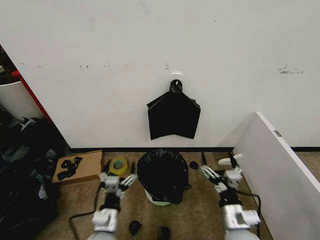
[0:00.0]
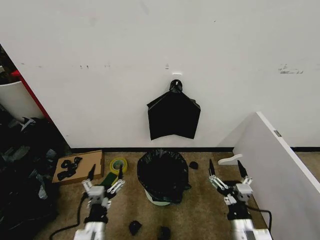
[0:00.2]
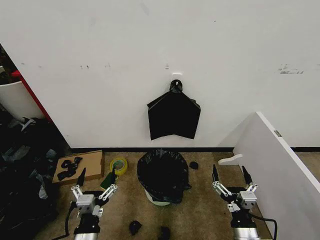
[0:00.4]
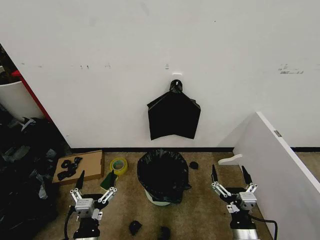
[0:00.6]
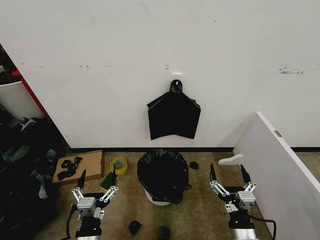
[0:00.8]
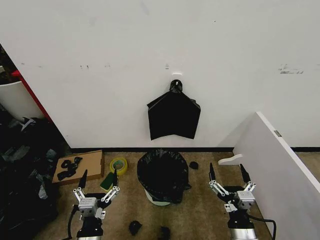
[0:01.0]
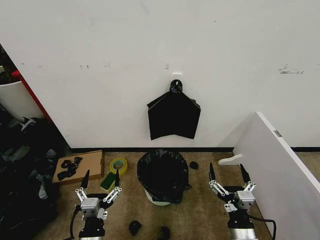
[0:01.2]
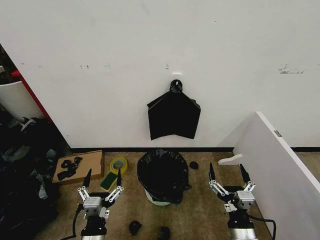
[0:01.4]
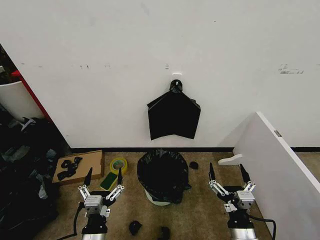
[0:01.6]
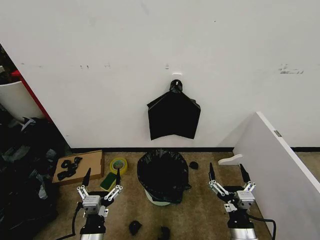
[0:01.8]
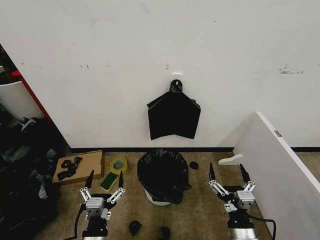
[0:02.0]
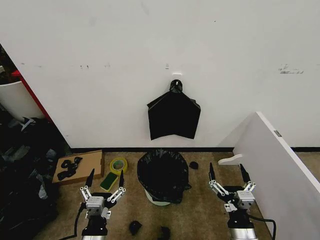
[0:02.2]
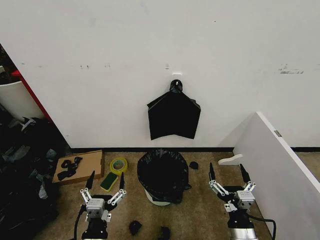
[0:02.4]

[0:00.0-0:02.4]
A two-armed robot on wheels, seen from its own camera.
Task of the whole recording: Place the garbage bag over the trash bin.
0:00.0 to 0:01.2: The two grippers go some 5 cm backward.
0:01.2 to 0:02.4: Both grippers stay about where they are.

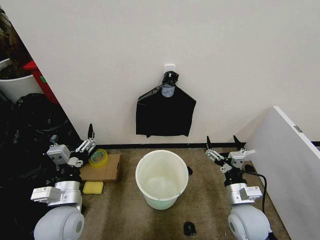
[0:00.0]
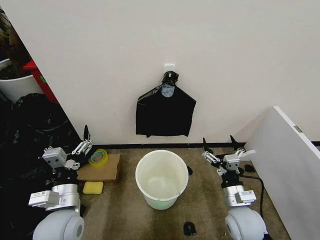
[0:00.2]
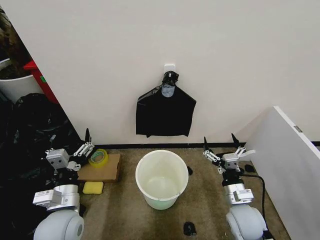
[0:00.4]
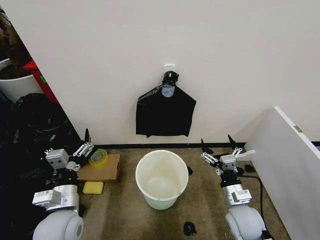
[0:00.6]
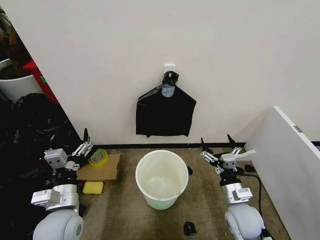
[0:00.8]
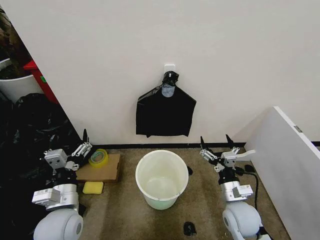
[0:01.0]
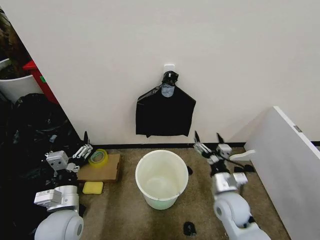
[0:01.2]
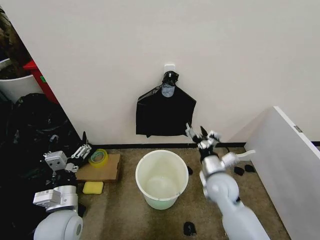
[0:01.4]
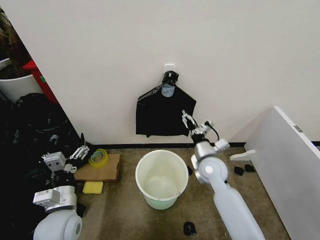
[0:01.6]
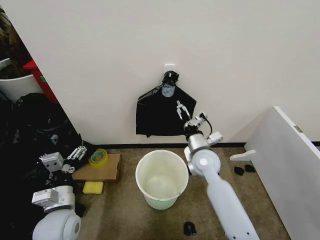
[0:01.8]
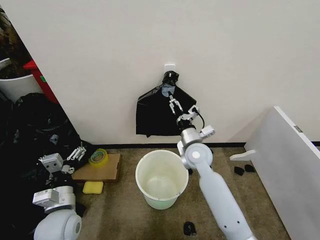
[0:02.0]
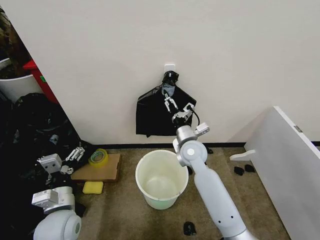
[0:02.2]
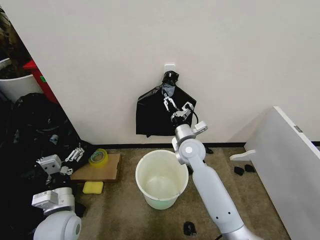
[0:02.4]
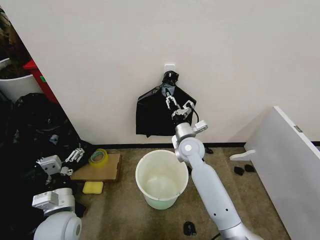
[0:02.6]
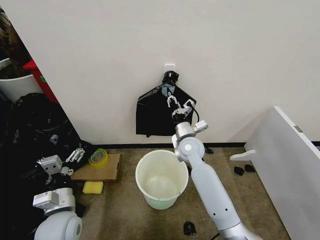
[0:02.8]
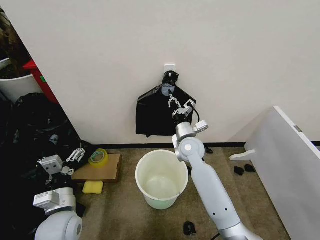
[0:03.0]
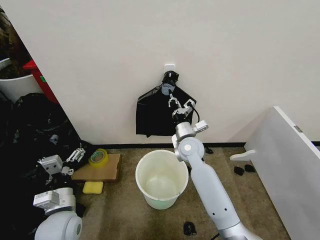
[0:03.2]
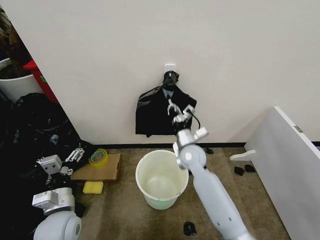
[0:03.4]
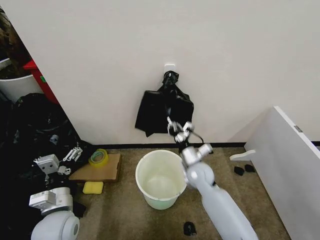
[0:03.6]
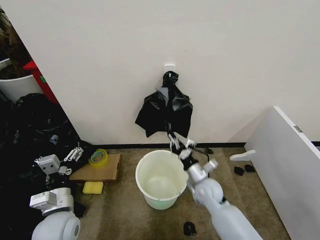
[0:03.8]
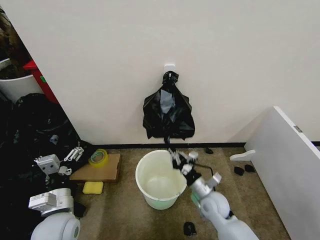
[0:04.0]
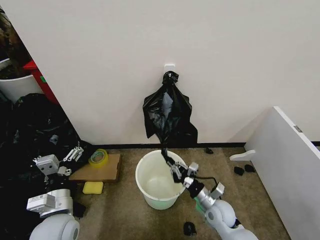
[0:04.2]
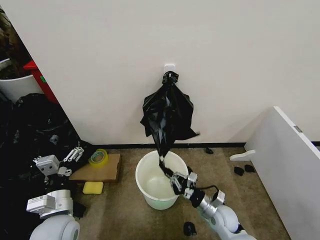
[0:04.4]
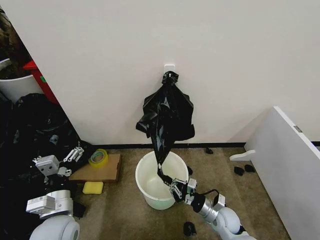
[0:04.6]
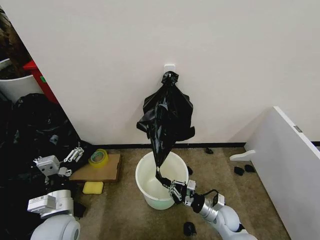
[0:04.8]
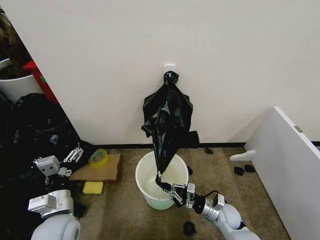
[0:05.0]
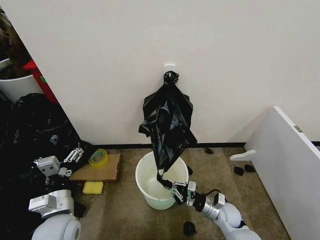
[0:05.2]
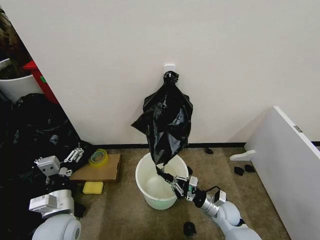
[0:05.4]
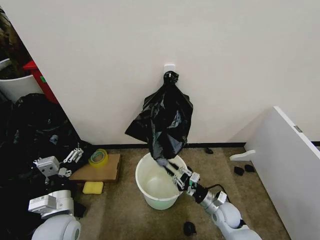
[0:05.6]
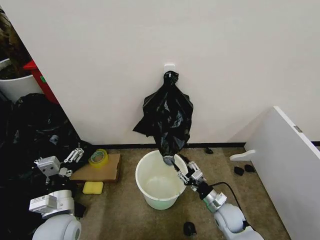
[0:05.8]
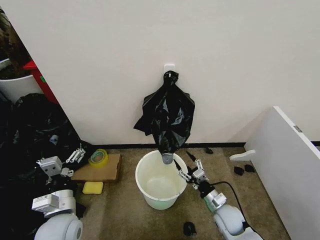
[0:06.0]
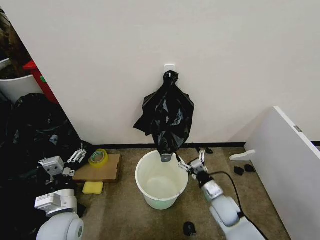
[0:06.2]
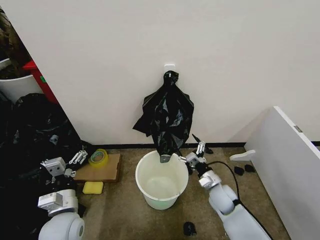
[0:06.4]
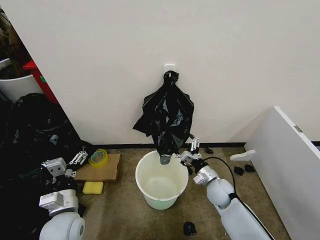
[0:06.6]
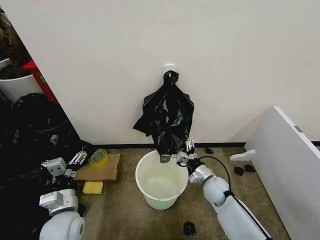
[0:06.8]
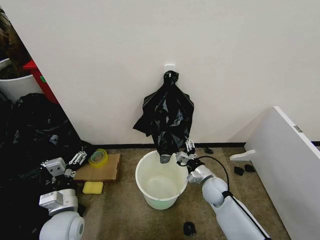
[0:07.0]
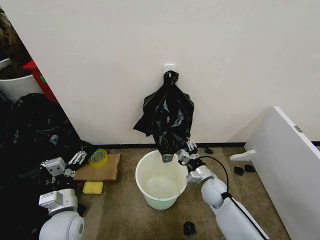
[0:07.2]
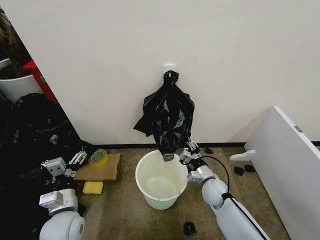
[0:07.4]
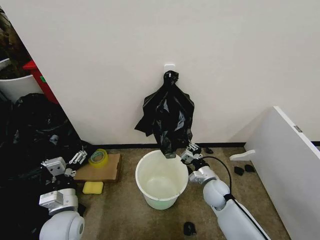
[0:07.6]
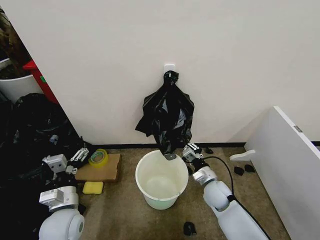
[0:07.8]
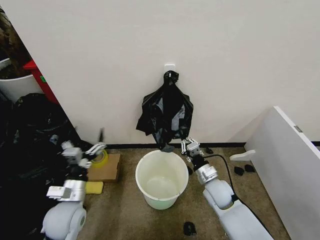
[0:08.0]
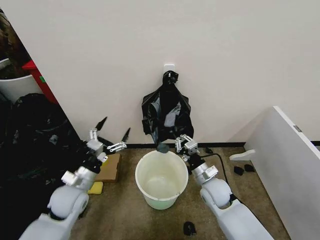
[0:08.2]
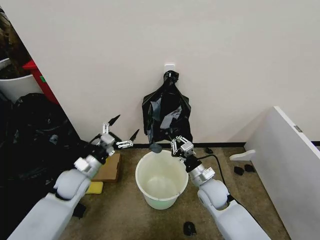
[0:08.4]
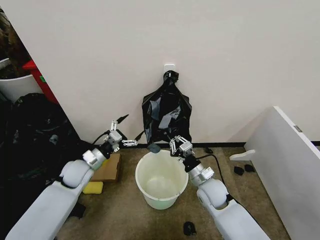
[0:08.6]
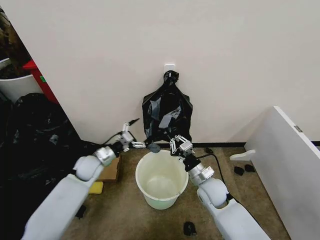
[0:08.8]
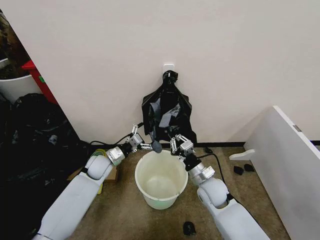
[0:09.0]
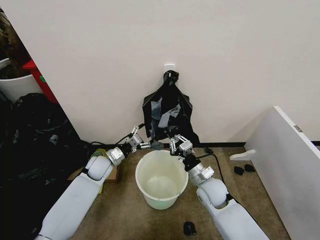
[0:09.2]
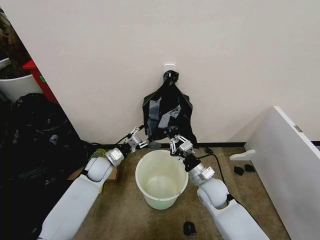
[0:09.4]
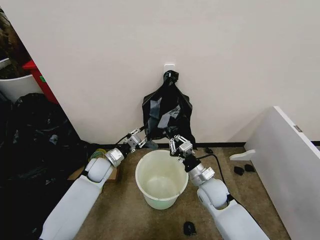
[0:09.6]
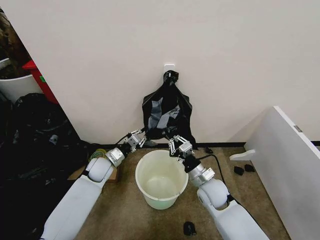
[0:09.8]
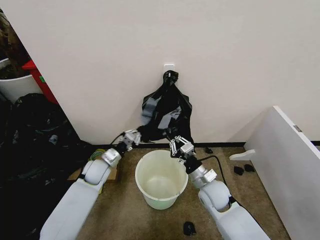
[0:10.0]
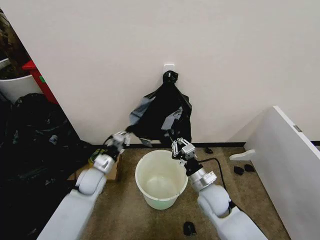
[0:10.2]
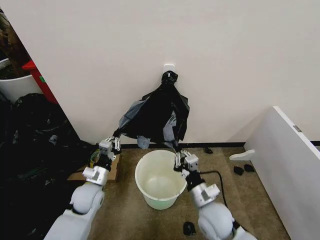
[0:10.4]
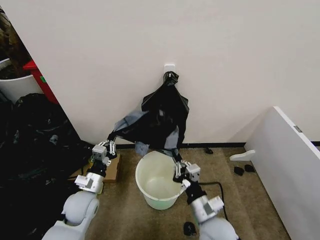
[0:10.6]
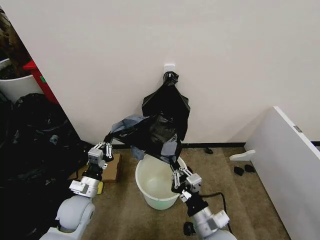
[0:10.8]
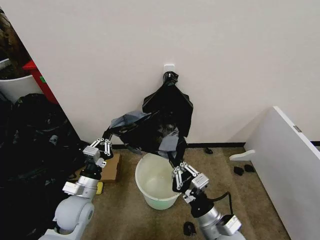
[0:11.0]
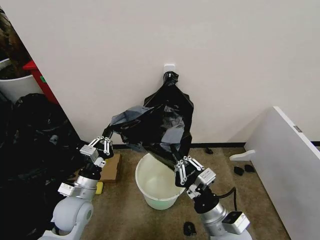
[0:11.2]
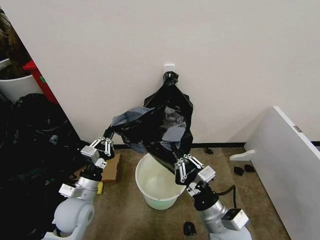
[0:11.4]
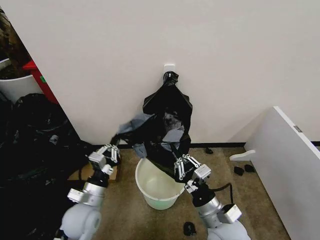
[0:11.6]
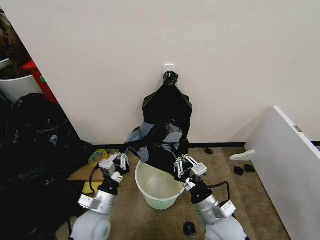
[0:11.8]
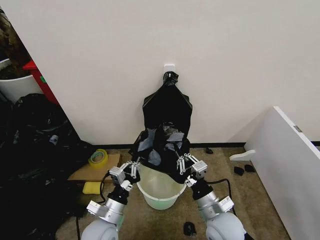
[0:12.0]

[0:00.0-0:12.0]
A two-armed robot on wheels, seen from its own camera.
Task of the whole recording: Place the garbage bag over the trash bin.
0:01.6 to 0:03.0: The right gripper shifts approximately 10 cm forward and to the left, and closes.
0:03.0 to 0:04.4: The right gripper moves downward, backward and to the right, some 30 cm.
0:04.4 to 0:06.0: The right gripper opens its fingers.
0:06.0 to 0:07.6: The right gripper shifts roughly 10 cm forward, and closes its fingers.
0:07.6 to 0:09.0: The right gripper is displaced upward by some 5 cm. Meanwhile the left gripper shifts some 20 cm forward.
0:09.0 to 0:10.4: Both grippers move backward, some 10 cm. The left gripper closes up.
0:10.4 to 0:12.0: The left gripper shifts approximately 15 cm backward and to the right.

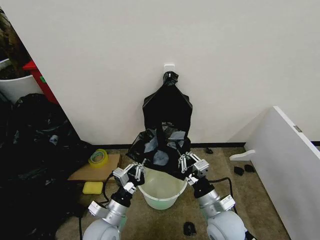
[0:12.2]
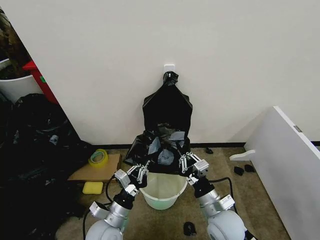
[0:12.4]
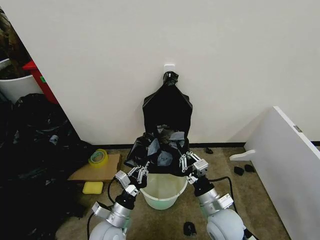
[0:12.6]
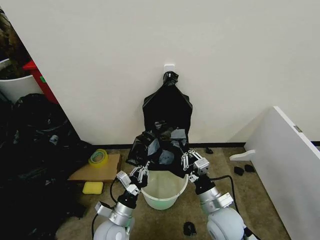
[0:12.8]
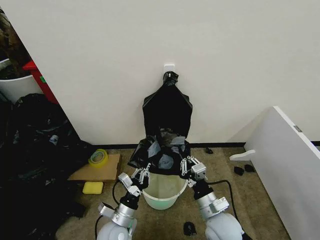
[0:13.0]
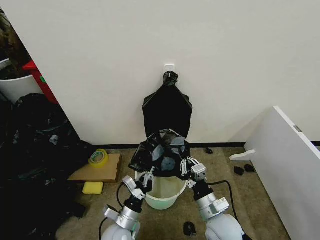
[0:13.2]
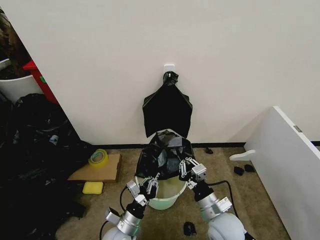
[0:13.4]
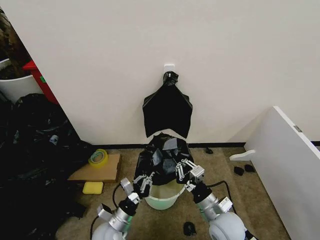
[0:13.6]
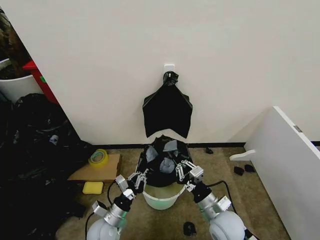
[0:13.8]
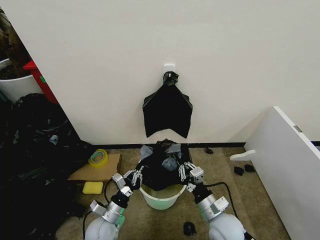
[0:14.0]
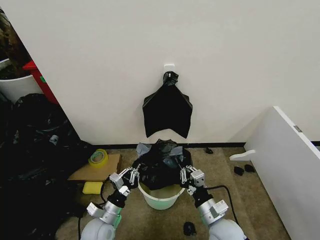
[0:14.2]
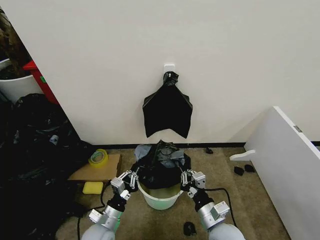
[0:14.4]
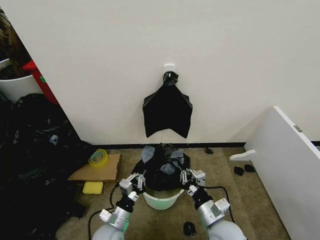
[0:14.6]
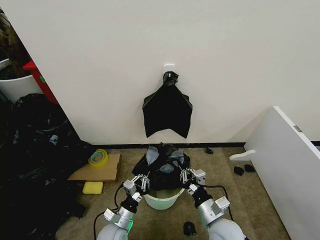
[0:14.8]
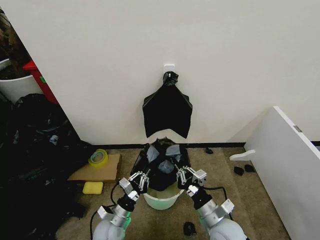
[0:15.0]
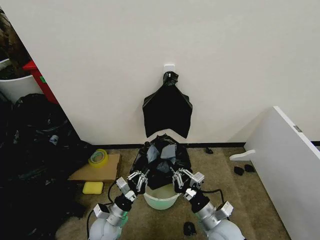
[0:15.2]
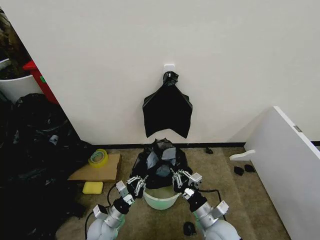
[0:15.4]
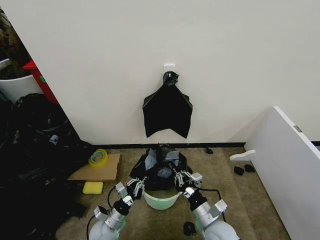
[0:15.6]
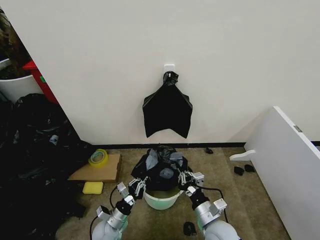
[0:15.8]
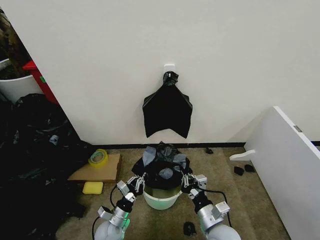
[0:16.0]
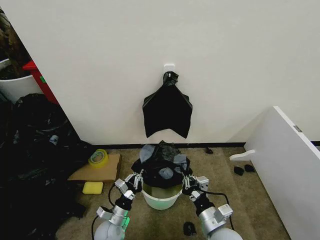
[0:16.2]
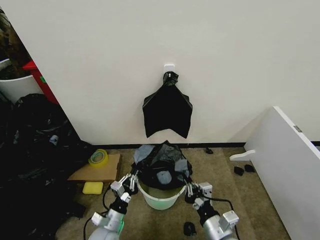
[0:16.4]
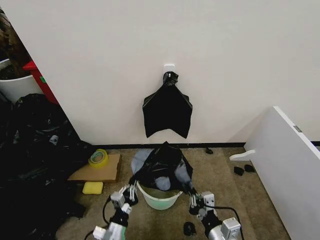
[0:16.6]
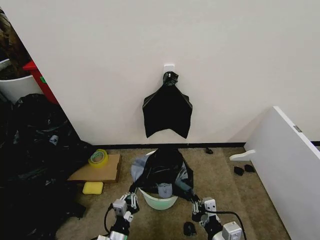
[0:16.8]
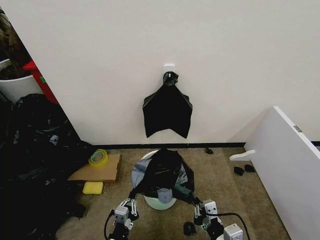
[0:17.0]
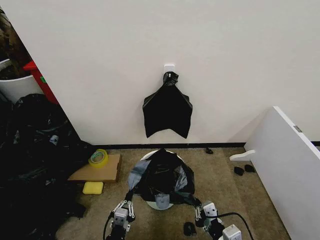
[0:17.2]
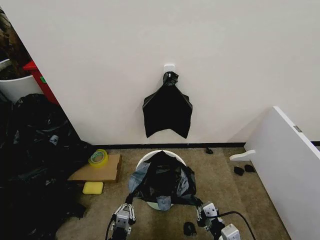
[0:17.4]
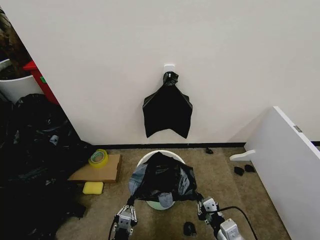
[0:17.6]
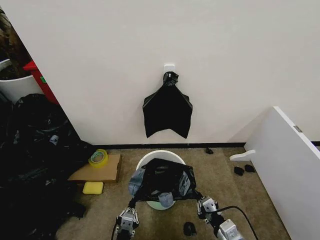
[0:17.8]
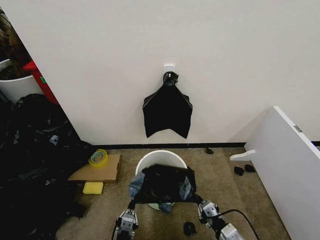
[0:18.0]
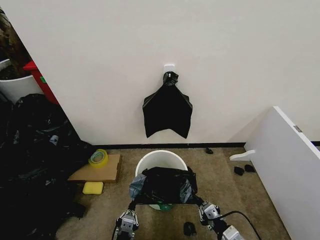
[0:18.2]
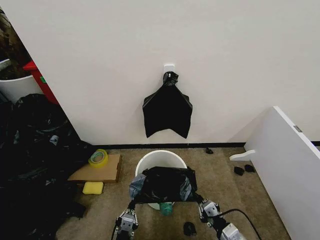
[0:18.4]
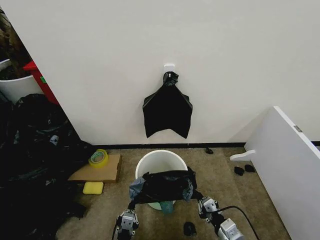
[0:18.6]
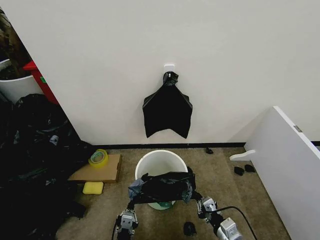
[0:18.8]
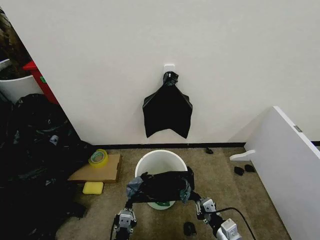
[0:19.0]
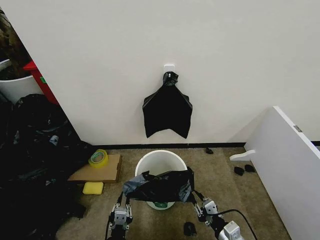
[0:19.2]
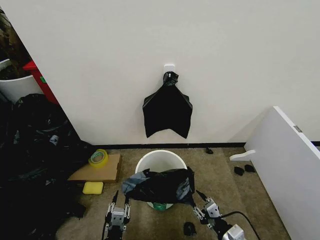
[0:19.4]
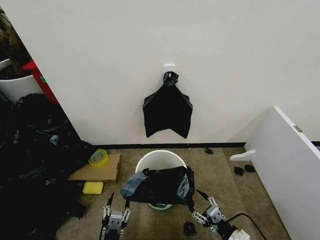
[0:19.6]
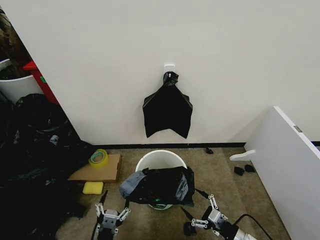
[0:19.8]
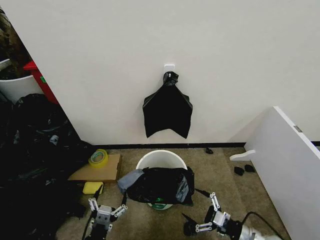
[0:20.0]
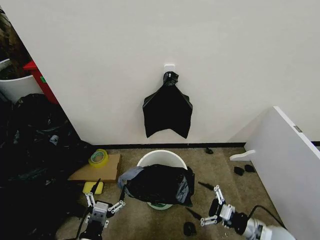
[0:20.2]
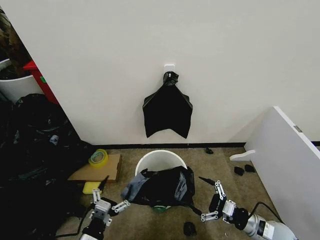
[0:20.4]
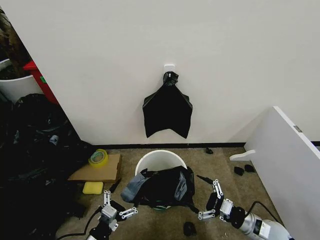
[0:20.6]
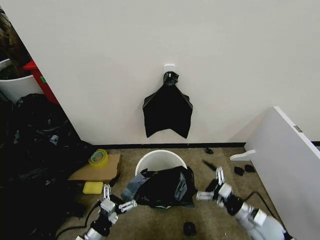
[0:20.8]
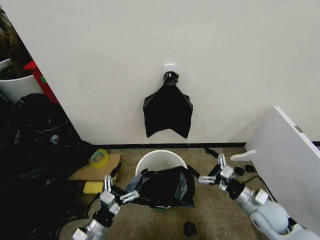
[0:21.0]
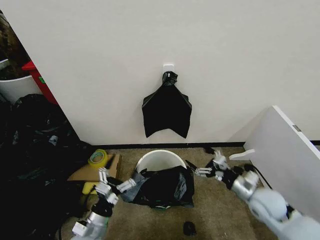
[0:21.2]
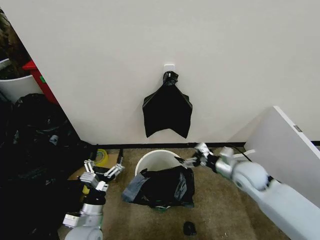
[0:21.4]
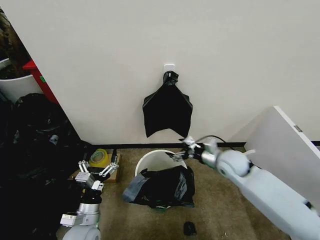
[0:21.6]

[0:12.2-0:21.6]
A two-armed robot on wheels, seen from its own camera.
Task of the whole recording: Place the garbage bag over the trash bin.
0:12.2 to 0:13.8: The left gripper travels downward by about 10 cm.
0:15.4 to 0:17.0: The left gripper travels backward by some 15 cm, while the right gripper travels backward and upward by about 10 cm.
0:17.0 to 0:18.4: The right gripper shifts approximately 10 cm downward and to the right.
0:18.4 to 0:20.0: The right gripper shifts about 10 cm to the right, and opens its fingers. Meanwhile the left gripper is displaced upward and to the left by some 10 cm, and opens up.
0:20.0 to 0:21.6: The left gripper shifts some 10 cm forward. The right gripper moves forward, upward and to the left, some 30 cm.
